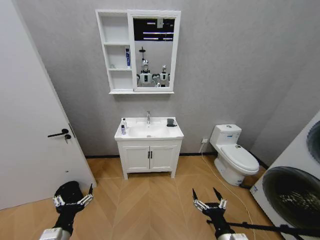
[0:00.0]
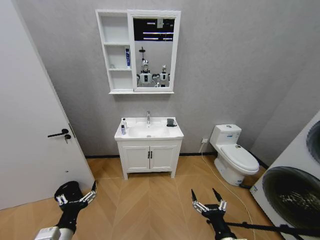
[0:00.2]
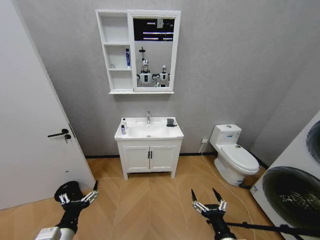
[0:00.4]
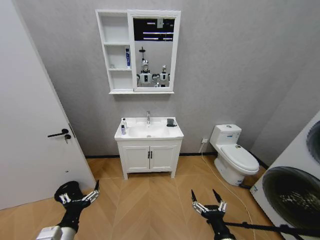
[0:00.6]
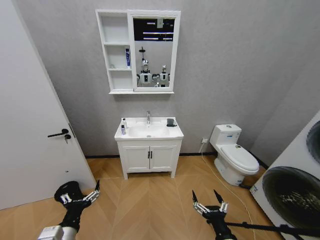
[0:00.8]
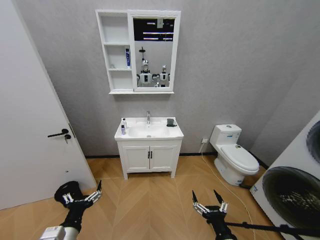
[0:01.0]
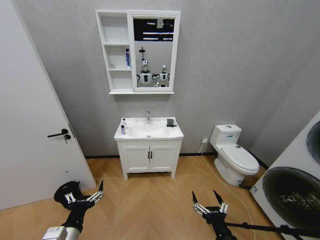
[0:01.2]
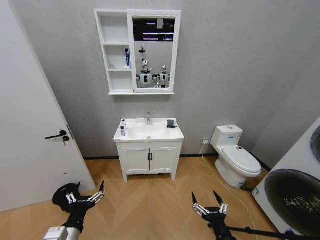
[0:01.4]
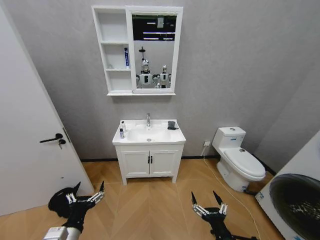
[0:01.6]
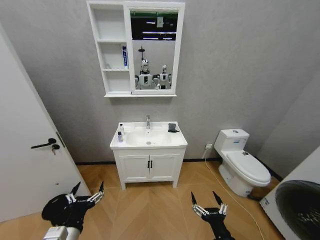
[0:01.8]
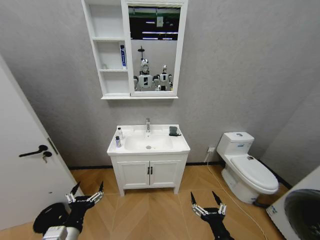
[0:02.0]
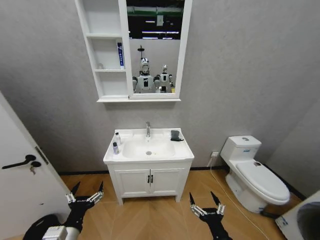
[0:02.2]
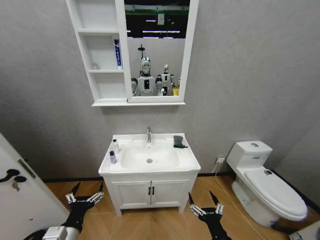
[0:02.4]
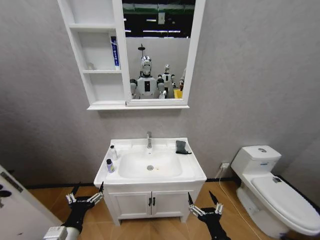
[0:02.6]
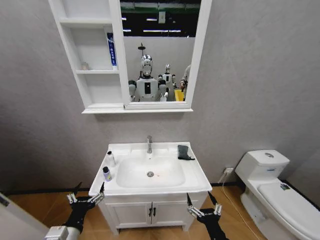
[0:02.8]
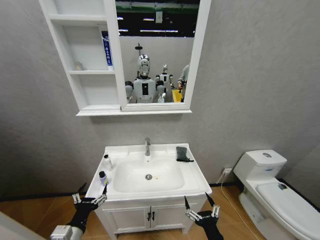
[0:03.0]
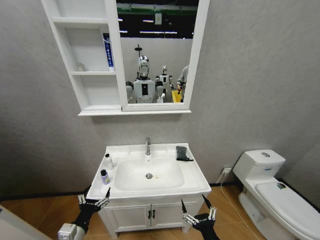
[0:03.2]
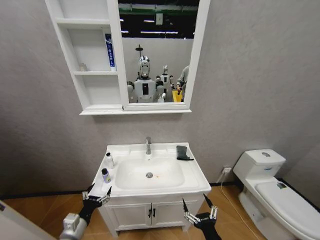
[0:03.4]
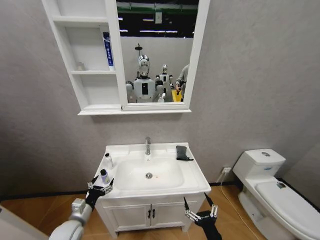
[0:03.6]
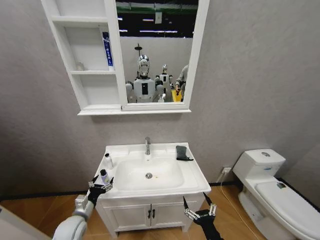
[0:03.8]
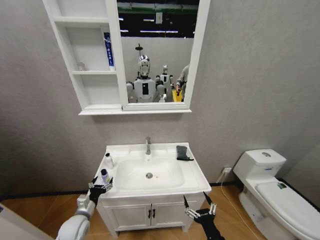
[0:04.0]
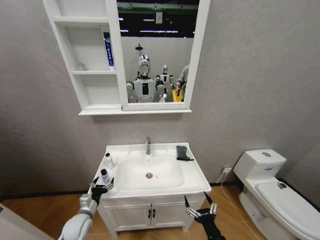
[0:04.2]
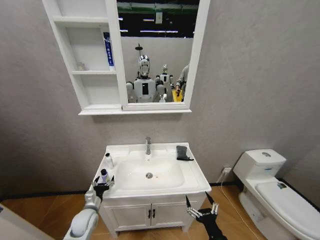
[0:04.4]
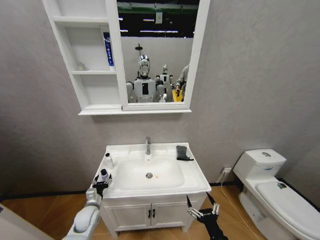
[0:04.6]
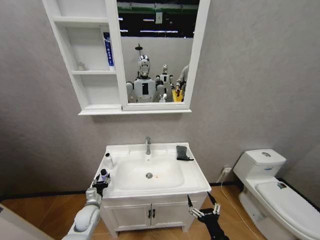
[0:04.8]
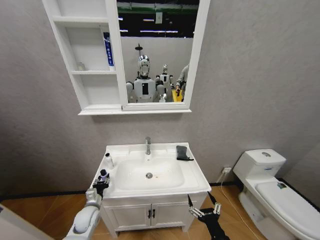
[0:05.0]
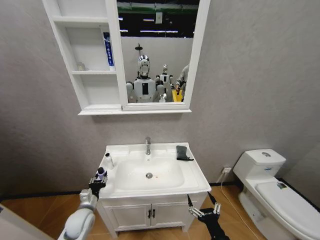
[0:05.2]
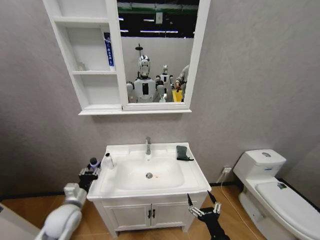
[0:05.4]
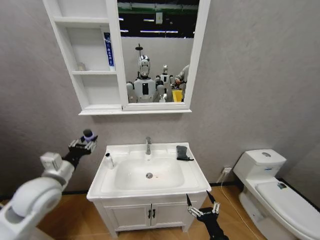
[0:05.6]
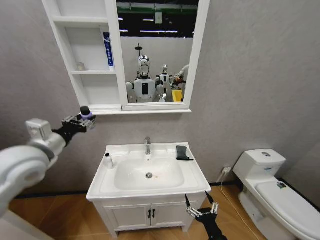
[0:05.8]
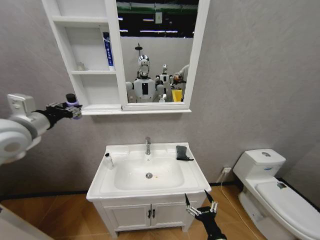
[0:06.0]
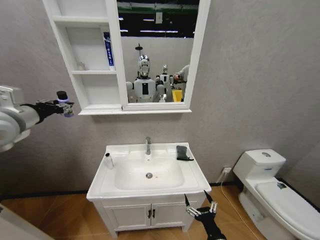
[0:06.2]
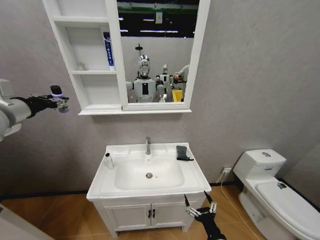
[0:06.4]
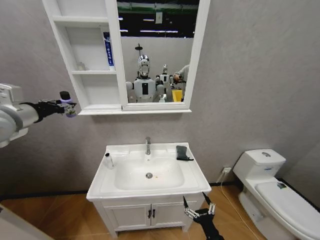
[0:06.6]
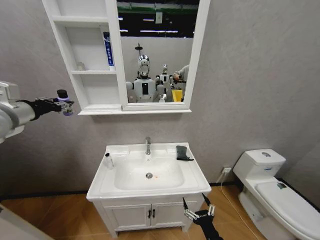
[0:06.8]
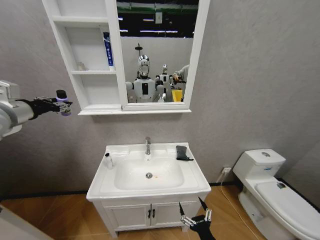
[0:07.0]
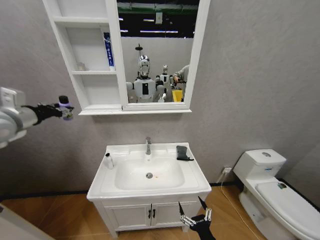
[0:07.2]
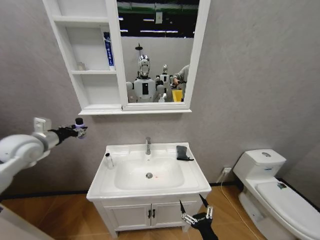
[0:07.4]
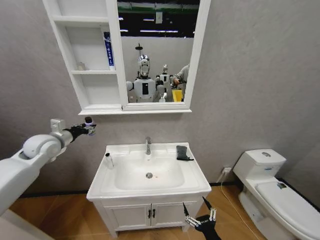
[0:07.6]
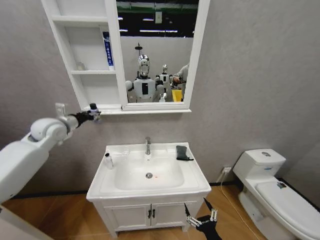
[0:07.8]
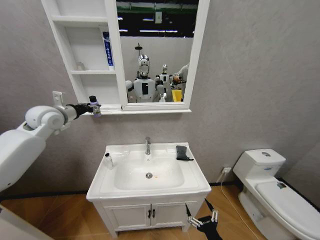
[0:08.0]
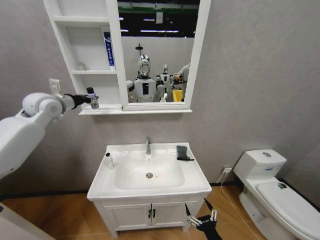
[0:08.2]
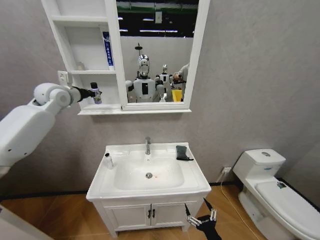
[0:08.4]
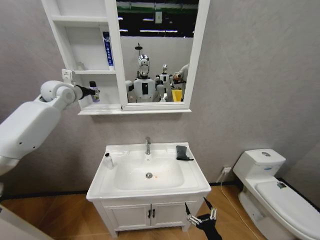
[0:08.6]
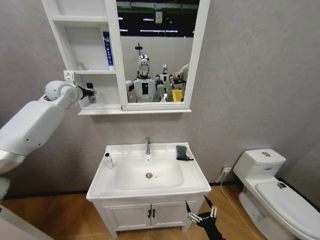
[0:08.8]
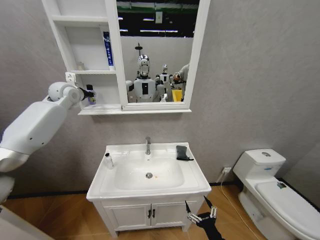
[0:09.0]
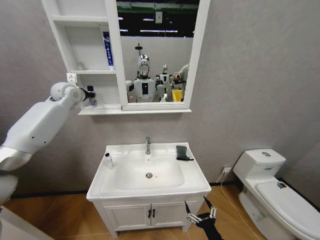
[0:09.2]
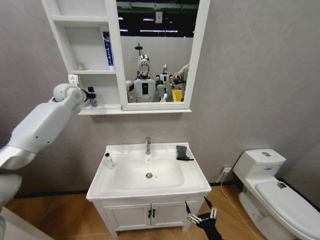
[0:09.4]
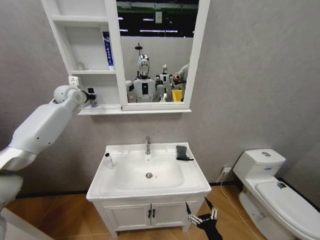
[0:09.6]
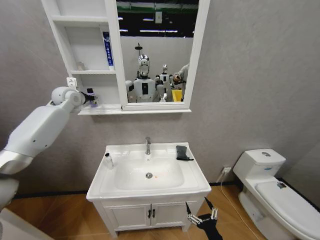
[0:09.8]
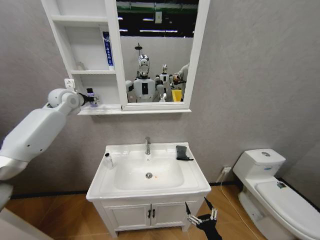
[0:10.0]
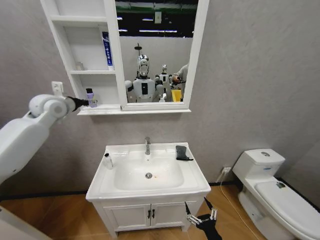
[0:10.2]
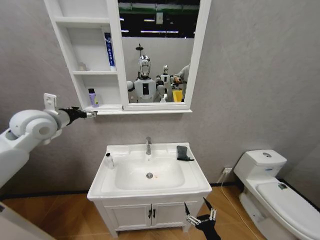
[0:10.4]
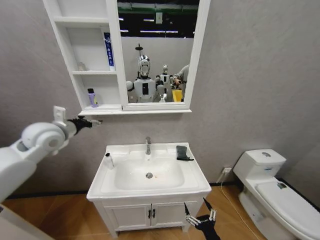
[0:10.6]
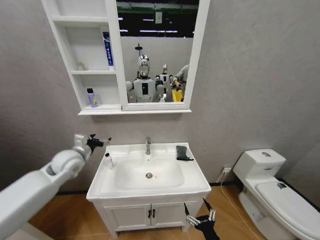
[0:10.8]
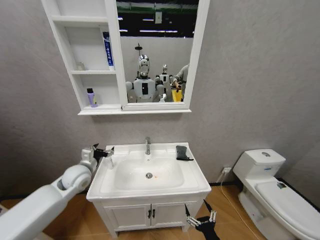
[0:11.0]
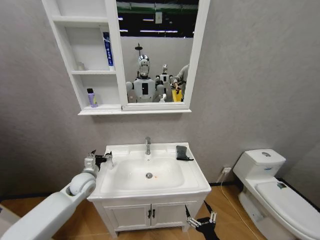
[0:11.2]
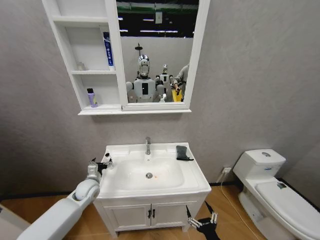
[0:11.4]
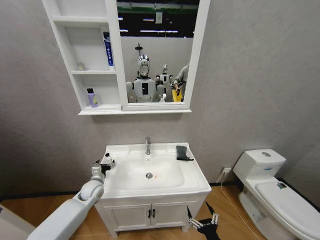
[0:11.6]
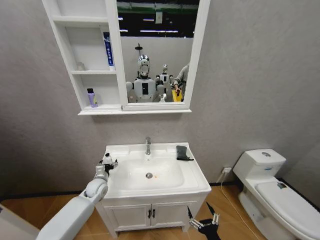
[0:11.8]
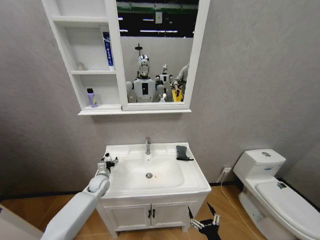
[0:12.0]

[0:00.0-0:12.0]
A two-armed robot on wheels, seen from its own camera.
Task of the whole recording: Move facial cleanser and shampoo from washbasin to cabinet, then wipe washbasin with towel.
0:03.0 to 0:04.4: The left gripper goes approximately 20 cm forward and downward.
0:04.4 to 0:06.0: The left gripper is displaced upward by roughly 40 cm, and closes up.
0:06.0 to 0:07.6: The left gripper moves downward, forward and to the left, roughly 15 cm.
0:07.6 to 0:09.0: The left gripper goes approximately 20 cm forward and upward.
0:09.0 to 0:10.4: The left gripper is displaced backward by about 15 cm, and opens its fingers.
0:10.4 to 0:12.0: The left gripper goes roughly 40 cm downward.

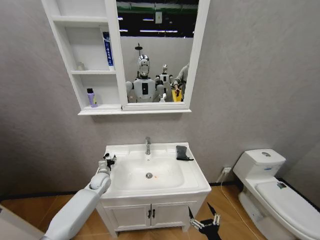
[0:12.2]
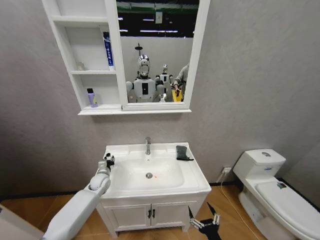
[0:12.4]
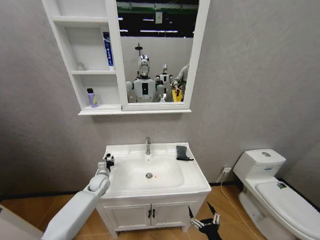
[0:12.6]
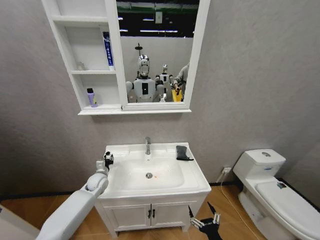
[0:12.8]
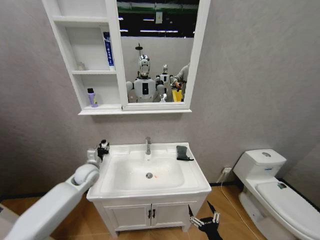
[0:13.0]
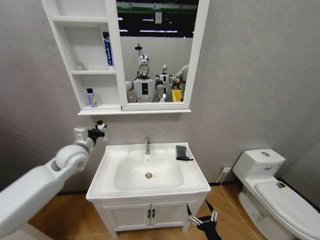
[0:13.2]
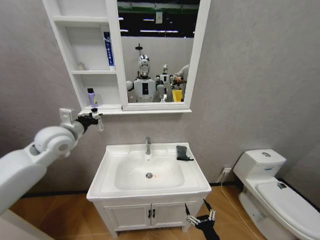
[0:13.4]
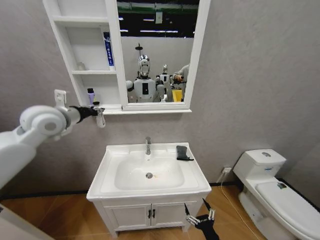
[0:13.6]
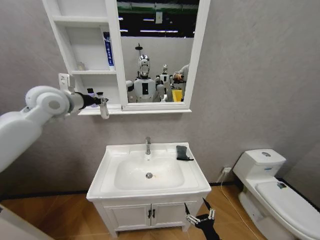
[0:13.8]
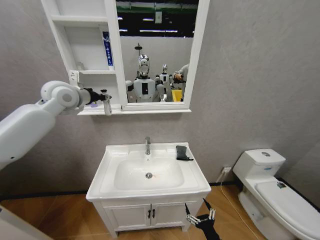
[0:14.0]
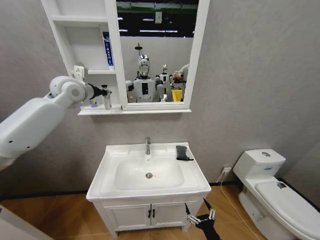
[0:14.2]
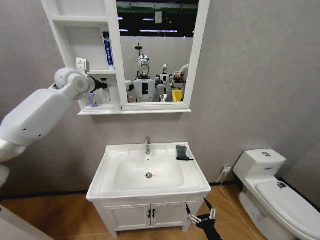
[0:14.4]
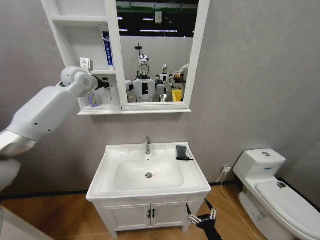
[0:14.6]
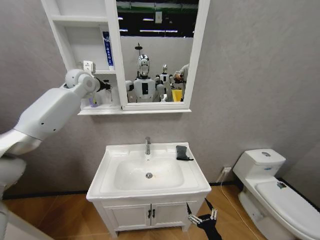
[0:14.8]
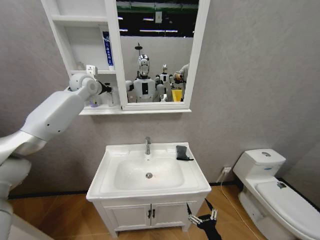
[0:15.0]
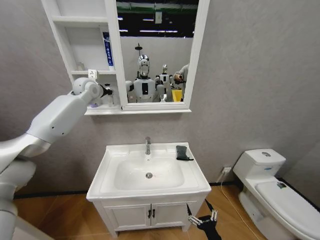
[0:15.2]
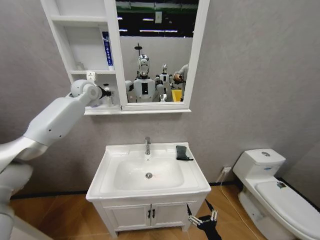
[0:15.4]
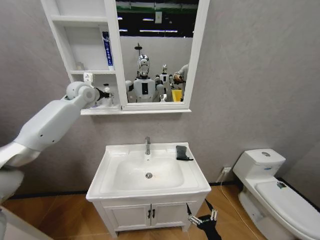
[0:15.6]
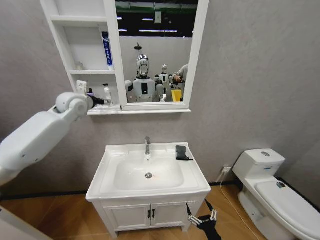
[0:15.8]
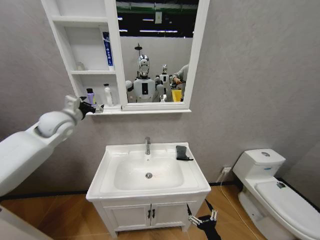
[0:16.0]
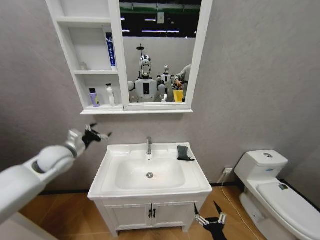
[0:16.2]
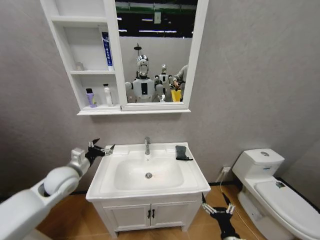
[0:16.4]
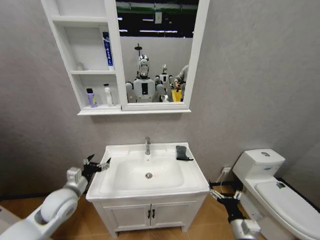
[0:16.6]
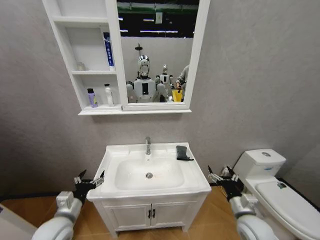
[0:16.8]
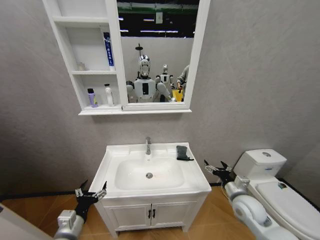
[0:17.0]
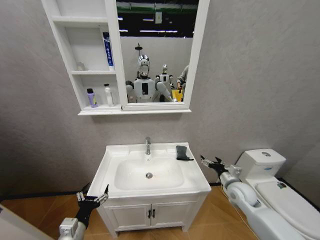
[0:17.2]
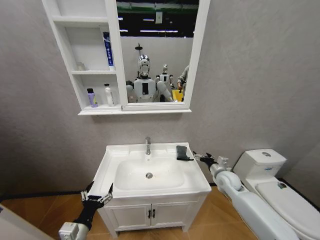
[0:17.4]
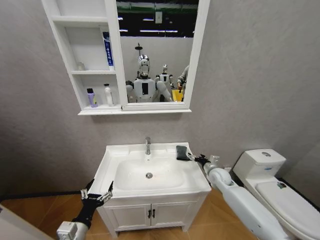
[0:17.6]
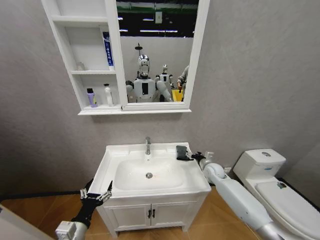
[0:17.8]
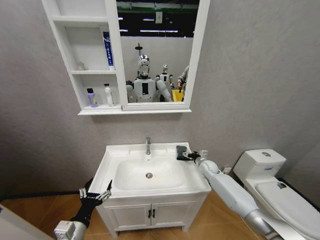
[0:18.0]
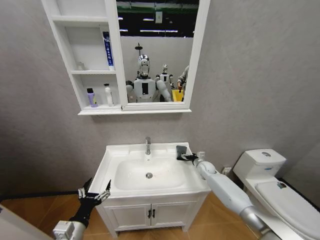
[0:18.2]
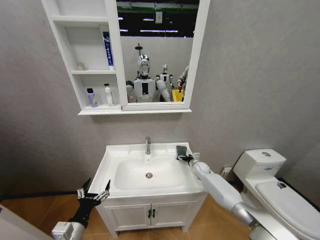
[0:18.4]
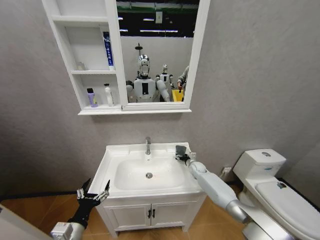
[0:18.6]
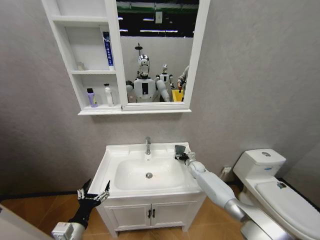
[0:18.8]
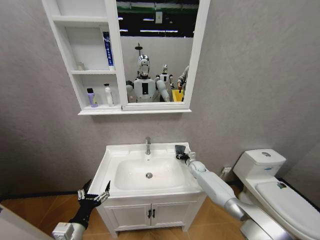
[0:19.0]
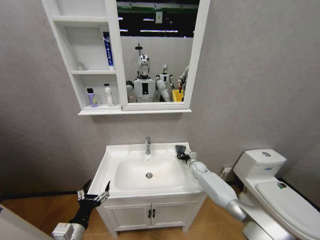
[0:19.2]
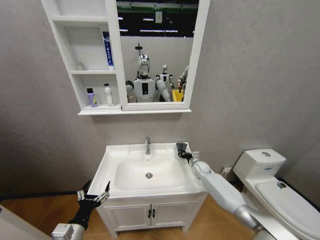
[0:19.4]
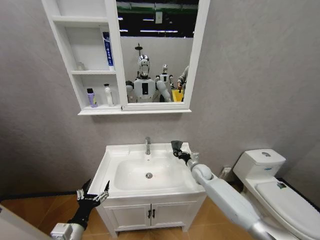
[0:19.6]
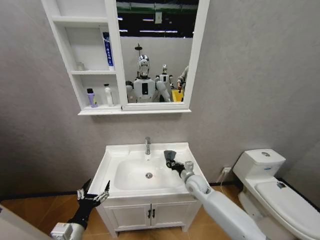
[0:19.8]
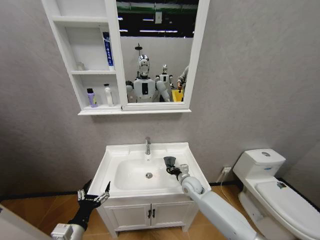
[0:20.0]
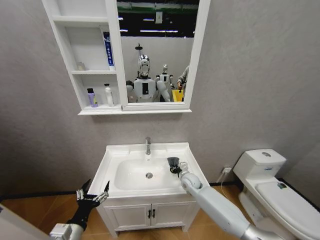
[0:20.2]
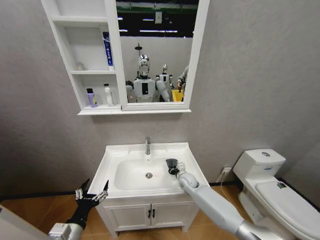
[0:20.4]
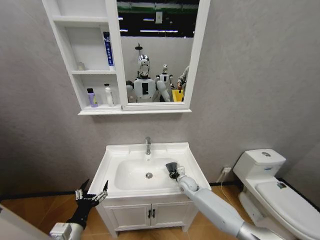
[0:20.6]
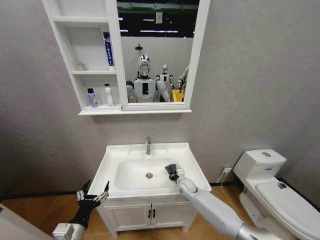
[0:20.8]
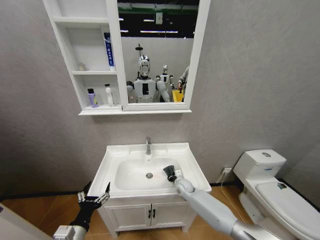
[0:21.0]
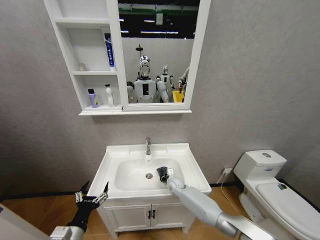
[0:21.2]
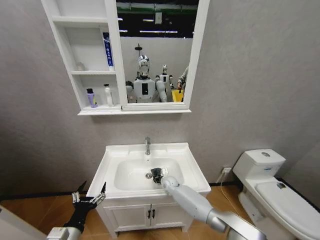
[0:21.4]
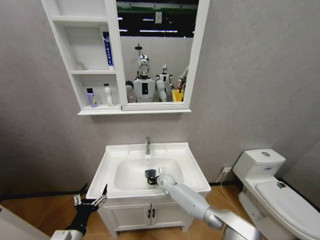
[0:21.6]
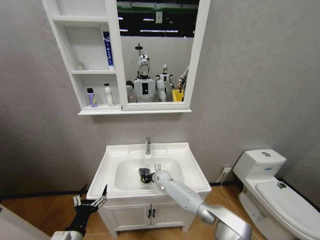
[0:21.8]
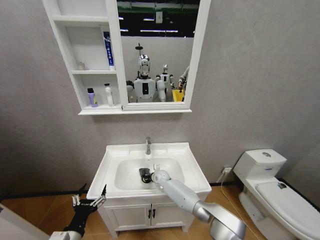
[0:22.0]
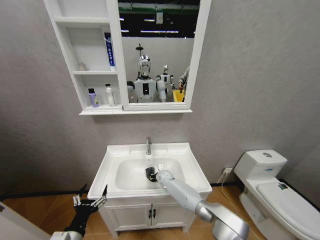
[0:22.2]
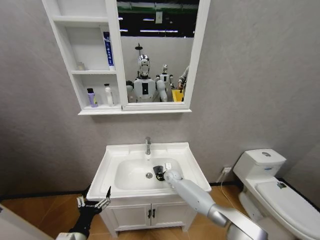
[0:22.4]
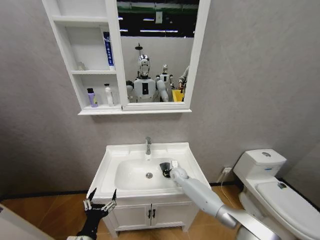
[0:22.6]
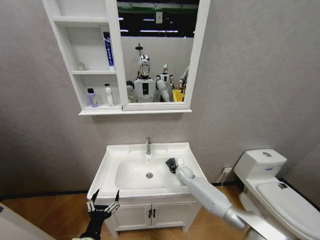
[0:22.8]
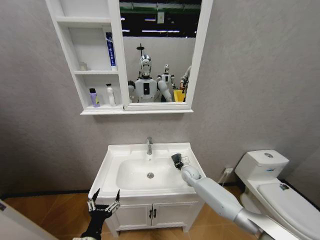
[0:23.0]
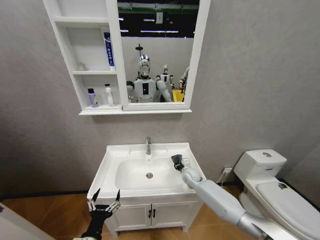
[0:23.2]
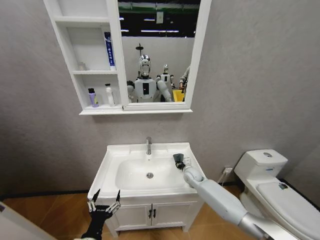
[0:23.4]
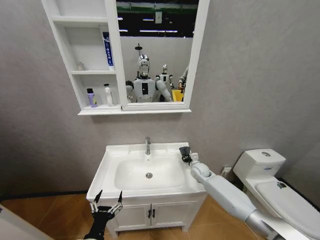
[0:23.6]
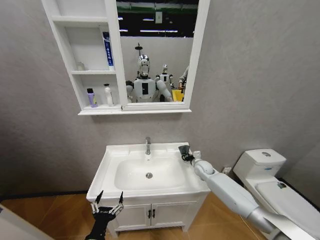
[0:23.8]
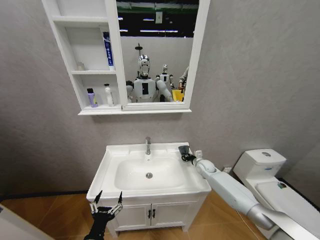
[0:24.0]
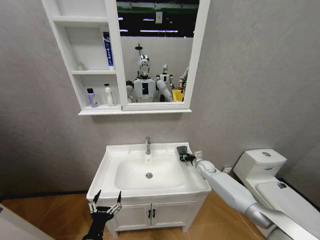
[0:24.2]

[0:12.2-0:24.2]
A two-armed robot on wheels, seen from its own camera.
Task of the whole recording: Move facial cleanser and shampoo from washbasin to cabinet, then wipe washbasin with towel.
0:12.2 to 0:13.8: The left gripper heads upward, covering approximately 40 cm, and closes up.
0:13.8 to 0:15.2: The left gripper goes some 15 cm forward.
0:15.2 to 0:16.6: The left gripper goes roughly 40 cm downward and backward, and opens. Meanwhile the right gripper shifts roughly 10 cm forward, to the right and upward.
0:16.6 to 0:18.2: The right gripper goes roughly 35 cm forward. The left gripper is displaced backward by about 15 cm.
0:18.2 to 0:19.8: The right gripper heads backward and to the left, covering approximately 15 cm, and closes its fingers.
0:19.8 to 0:21.2: The right gripper shifts about 15 cm downward, to the left and forward.
0:21.2 to 0:22.6: The right gripper goes to the left and returns, some 10 cm each way.
0:22.6 to 0:24.2: The right gripper goes approximately 15 cm to the right.
